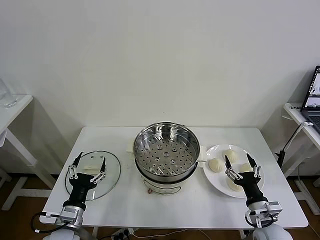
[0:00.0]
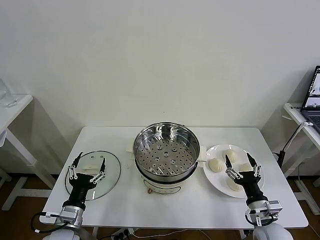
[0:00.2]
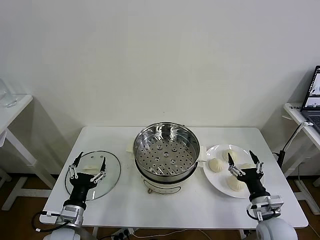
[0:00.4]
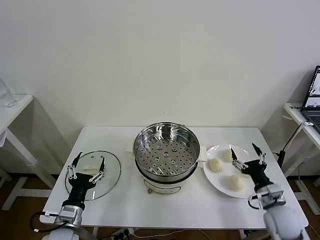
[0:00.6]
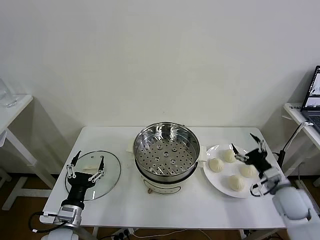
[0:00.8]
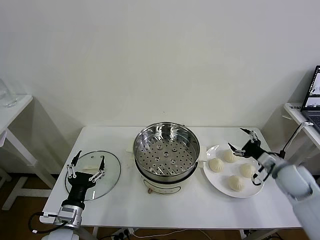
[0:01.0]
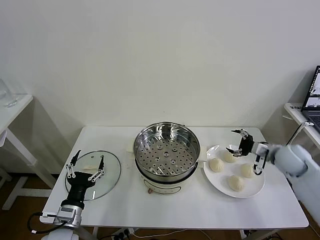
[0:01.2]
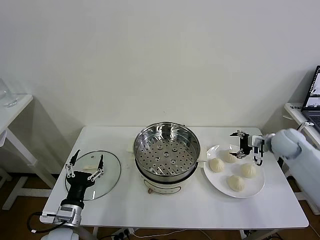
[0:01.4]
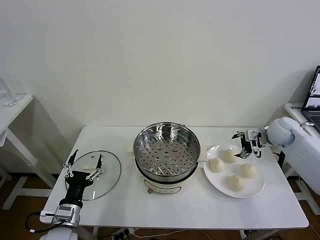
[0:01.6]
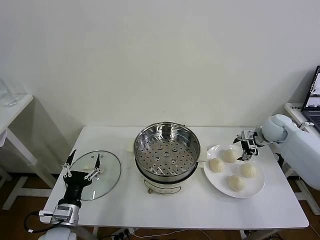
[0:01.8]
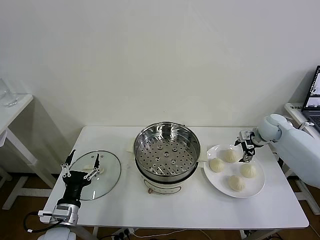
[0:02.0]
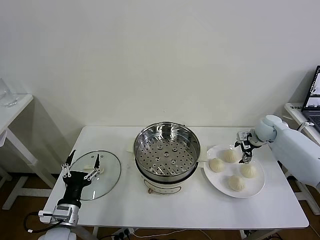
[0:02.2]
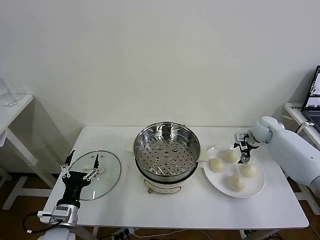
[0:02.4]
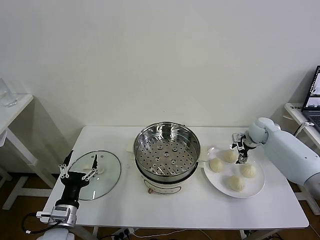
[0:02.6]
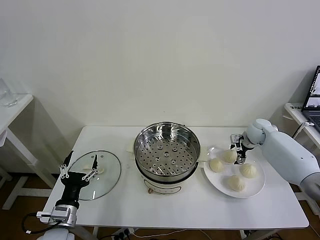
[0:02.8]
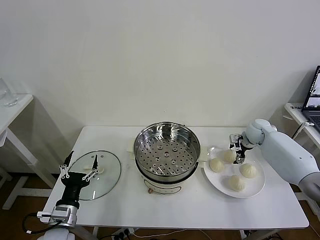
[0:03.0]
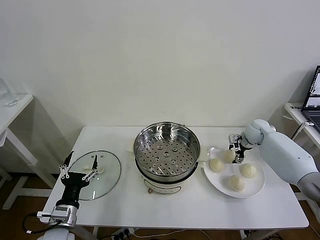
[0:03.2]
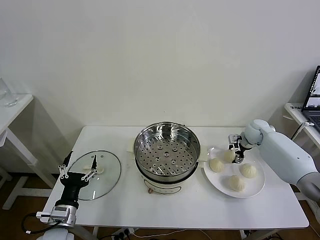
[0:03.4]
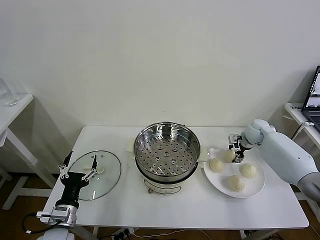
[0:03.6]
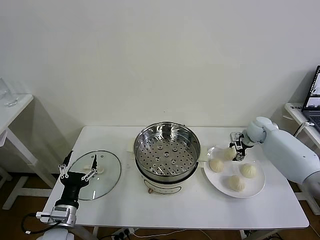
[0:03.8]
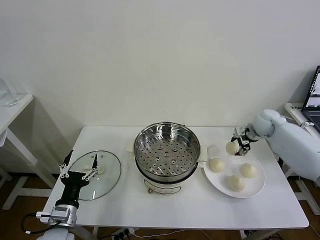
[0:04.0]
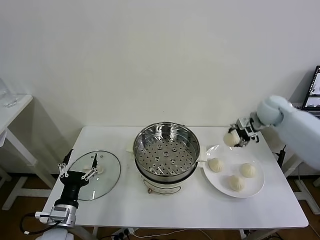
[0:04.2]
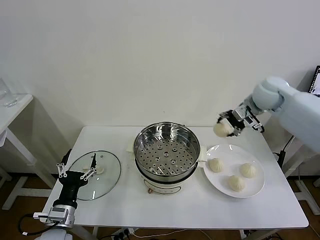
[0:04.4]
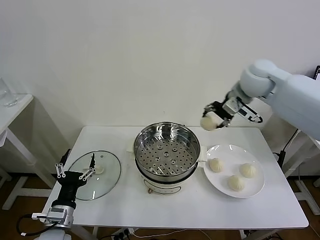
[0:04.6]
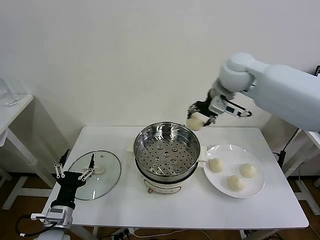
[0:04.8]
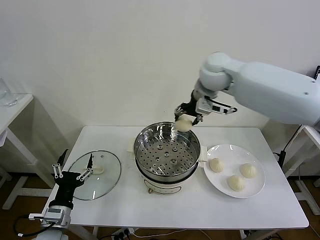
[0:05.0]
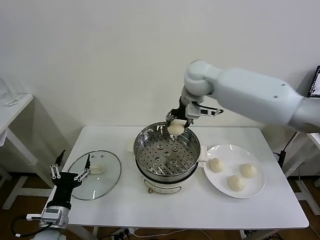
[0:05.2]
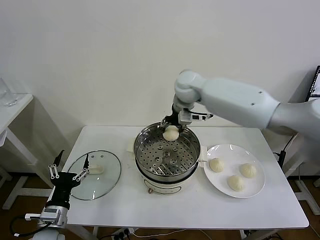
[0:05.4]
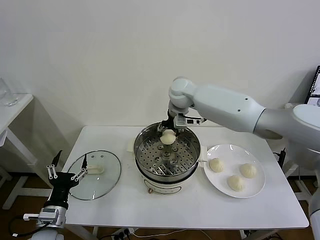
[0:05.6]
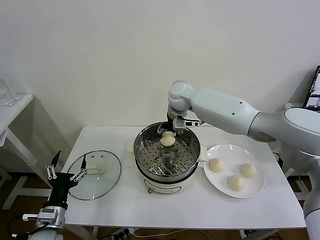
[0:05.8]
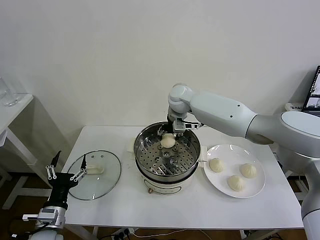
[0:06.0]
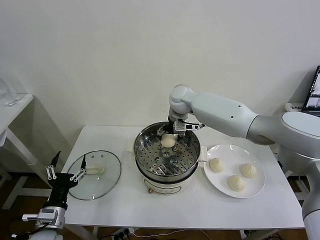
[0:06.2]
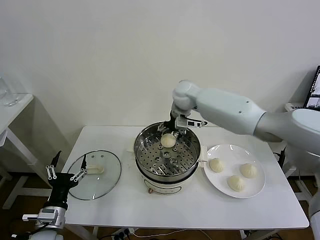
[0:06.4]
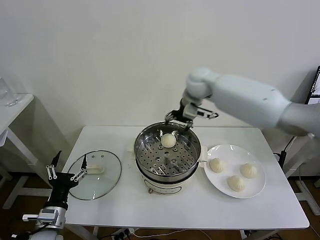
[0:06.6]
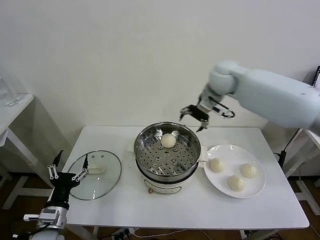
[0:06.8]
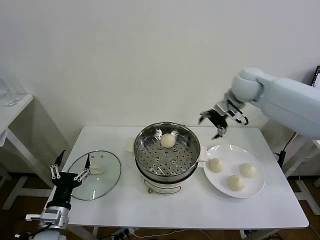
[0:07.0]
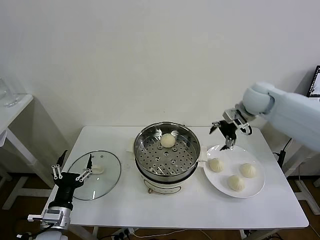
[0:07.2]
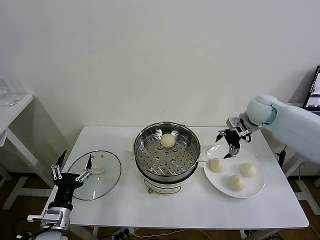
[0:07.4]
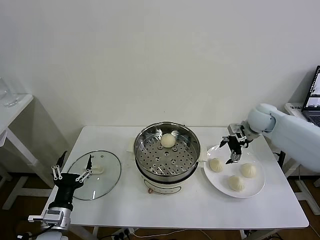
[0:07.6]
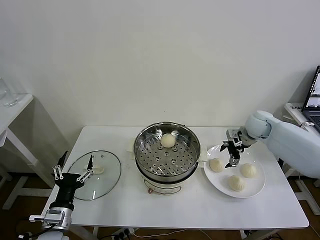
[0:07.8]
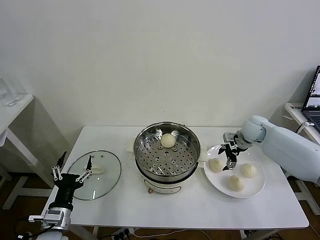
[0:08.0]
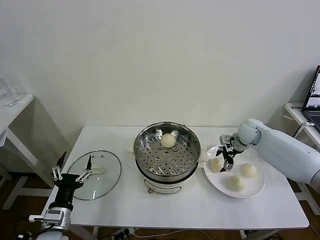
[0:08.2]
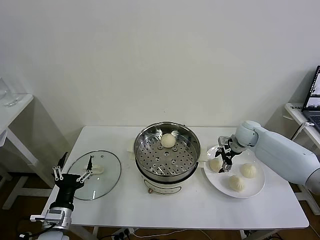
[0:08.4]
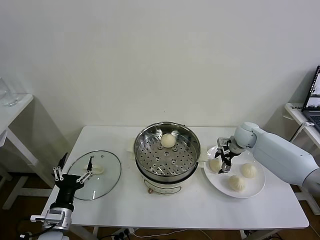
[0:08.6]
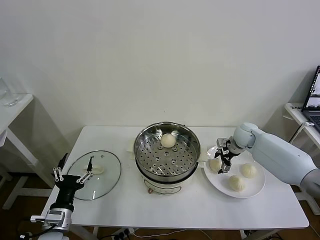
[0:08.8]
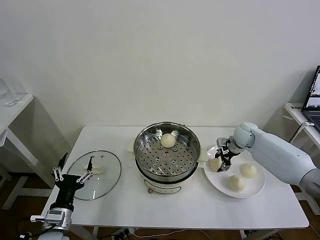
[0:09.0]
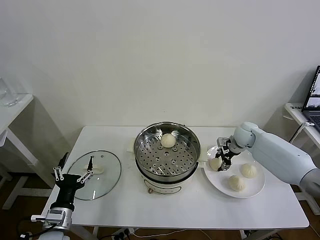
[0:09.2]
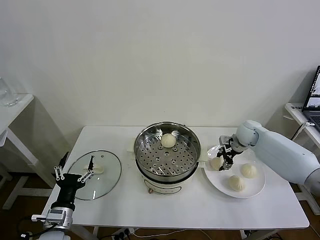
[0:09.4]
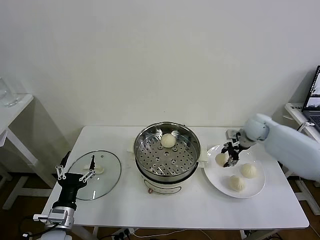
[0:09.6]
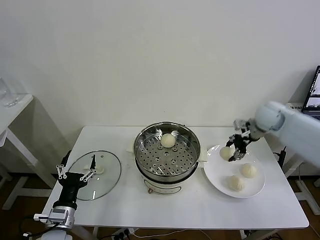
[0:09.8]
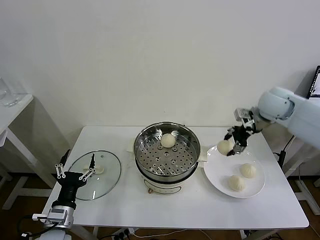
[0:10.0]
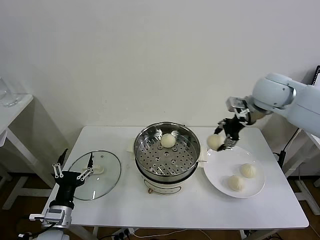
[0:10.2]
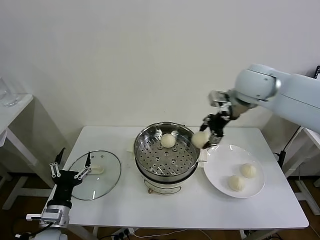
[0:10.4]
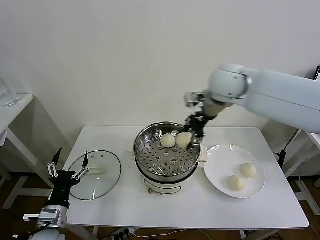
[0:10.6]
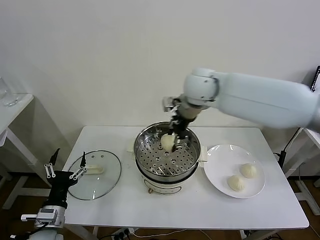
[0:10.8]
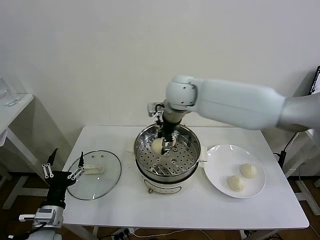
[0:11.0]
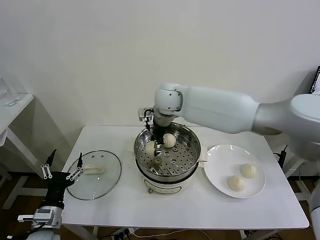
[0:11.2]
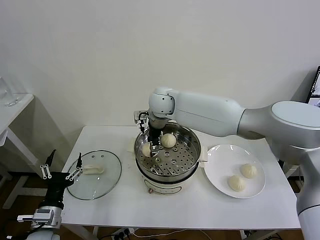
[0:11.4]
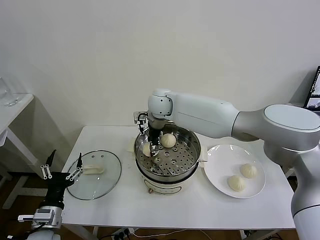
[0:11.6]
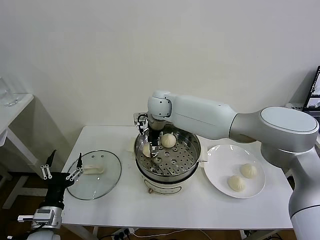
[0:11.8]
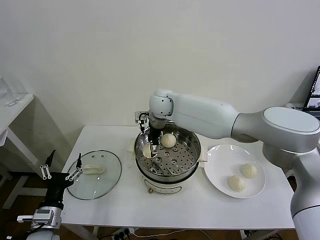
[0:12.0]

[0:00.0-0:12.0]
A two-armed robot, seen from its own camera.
Task of the whole recording: take steamed baozi put them in steamer then cover it.
Step, 0:00.0 to 0:03.4: Grasp the baozi in the plate with right gripper.
Step, 0:03.6 to 0:06.2: Place the baozi on the steamer with right gripper.
Step, 0:06.6 to 0:09.0: Grasp the baozi in the plate with right gripper.
0:01.6 to 0:03.0: The right gripper shifts some 10 cm downward and forward.
0:03.0 to 0:04.4: The right gripper moves upward, some 25 cm, and closes up.
0:04.4 to 0:06.0: The right gripper travels to the left and downward by about 25 cm.
0:06.0 to 0:07.6: The right gripper heads to the right, covering about 30 cm.
0:07.6 to 0:09.0: The right gripper shifts approximately 10 cm downward, and closes its fingers.
0:09.0 to 0:10.4: The right gripper moves upward and to the left, some 30 cm.
0:10.4 to 0:12.0: The right gripper heads to the left and downward, covering about 25 cm, and opens.

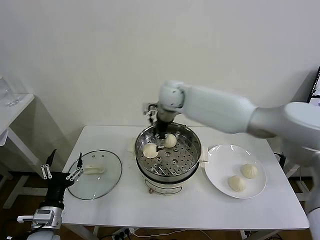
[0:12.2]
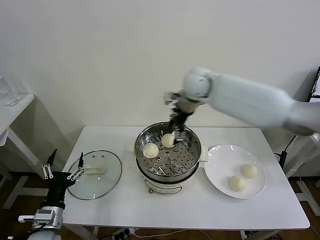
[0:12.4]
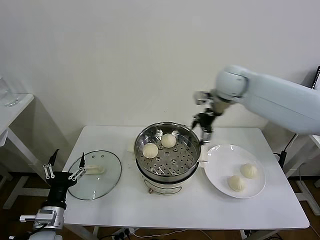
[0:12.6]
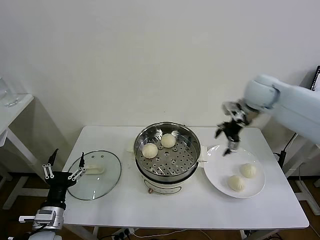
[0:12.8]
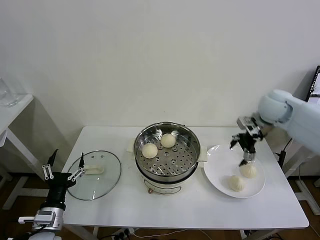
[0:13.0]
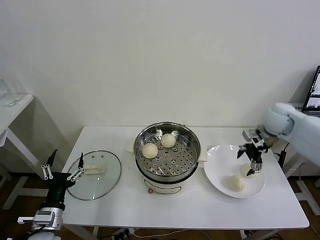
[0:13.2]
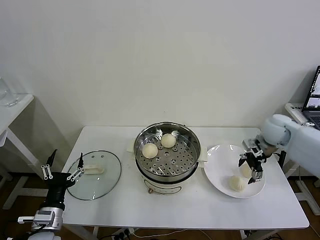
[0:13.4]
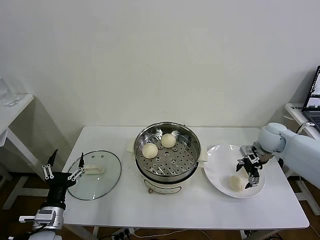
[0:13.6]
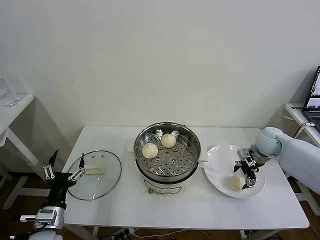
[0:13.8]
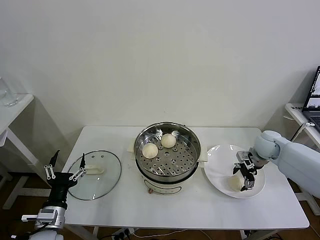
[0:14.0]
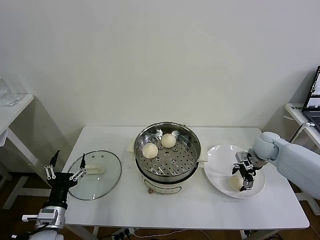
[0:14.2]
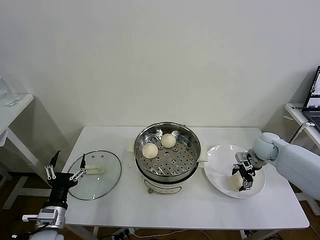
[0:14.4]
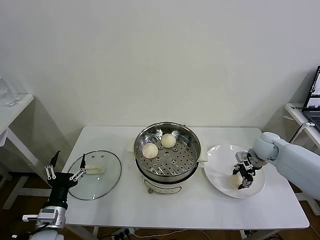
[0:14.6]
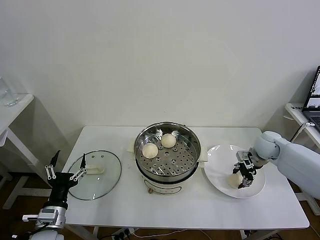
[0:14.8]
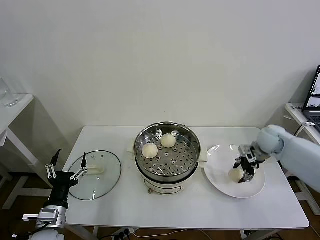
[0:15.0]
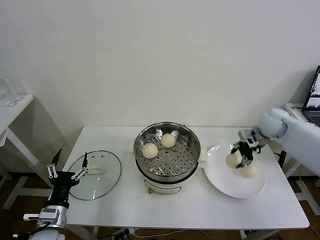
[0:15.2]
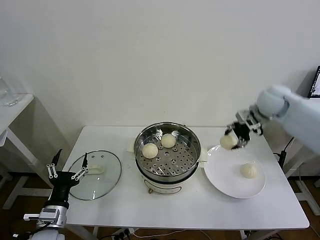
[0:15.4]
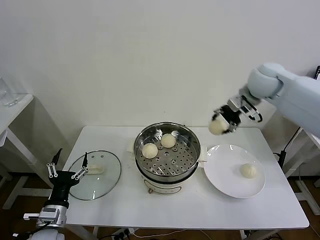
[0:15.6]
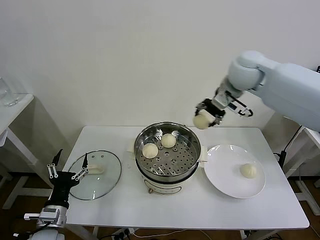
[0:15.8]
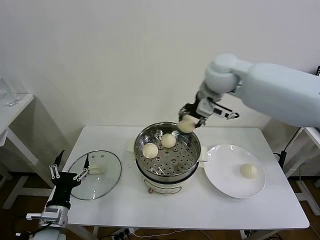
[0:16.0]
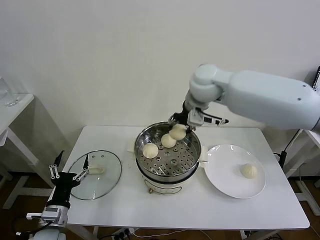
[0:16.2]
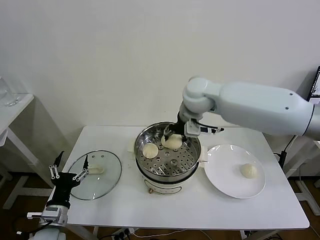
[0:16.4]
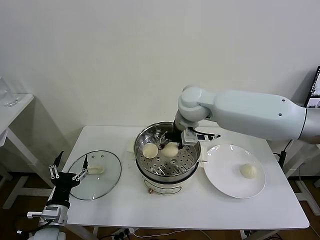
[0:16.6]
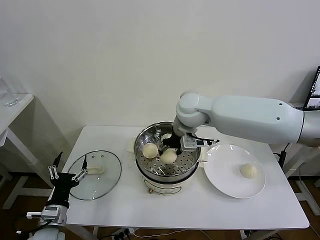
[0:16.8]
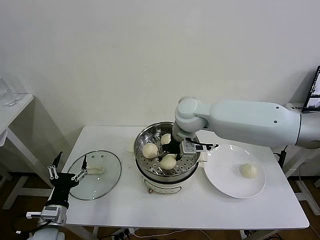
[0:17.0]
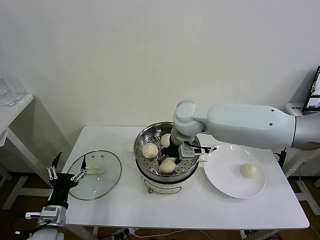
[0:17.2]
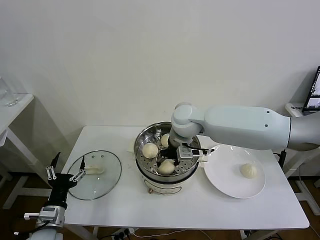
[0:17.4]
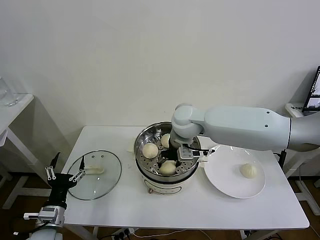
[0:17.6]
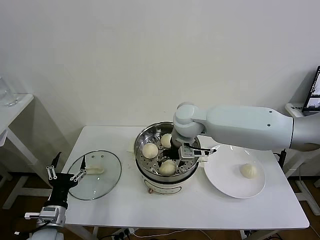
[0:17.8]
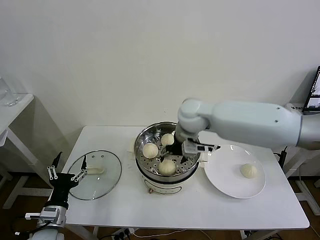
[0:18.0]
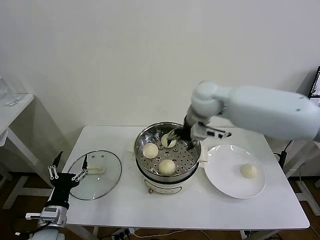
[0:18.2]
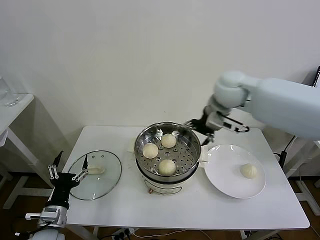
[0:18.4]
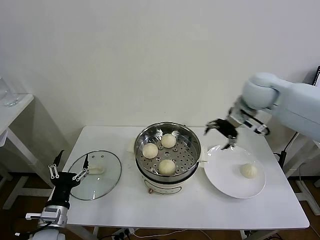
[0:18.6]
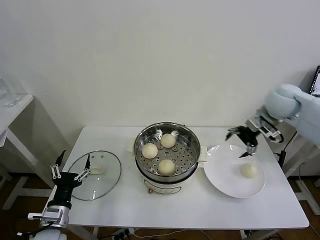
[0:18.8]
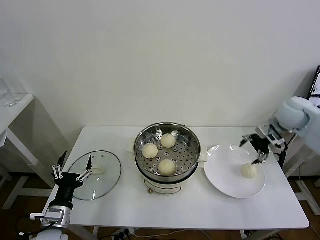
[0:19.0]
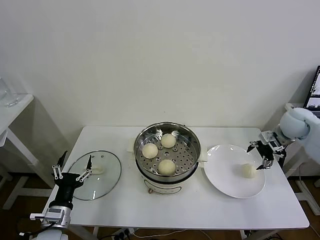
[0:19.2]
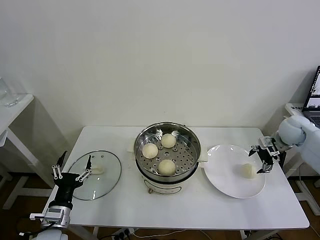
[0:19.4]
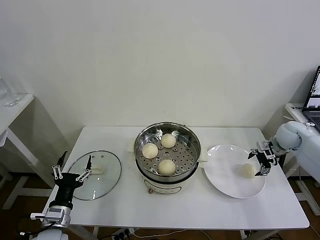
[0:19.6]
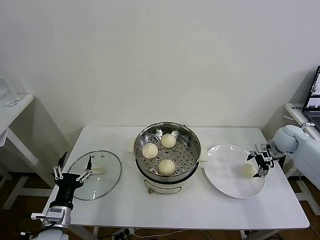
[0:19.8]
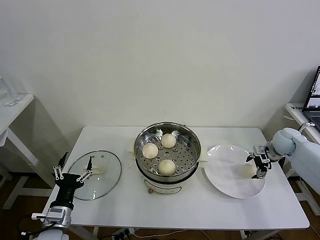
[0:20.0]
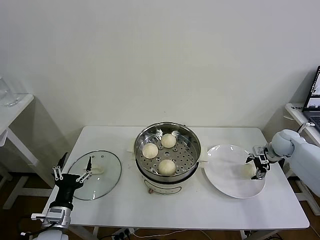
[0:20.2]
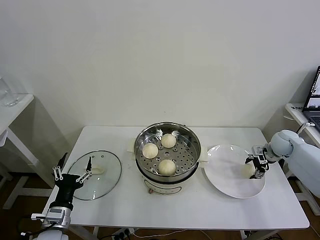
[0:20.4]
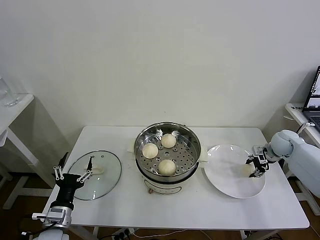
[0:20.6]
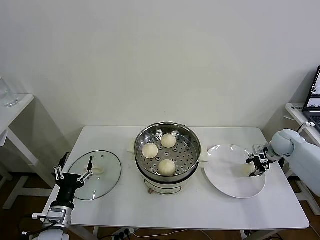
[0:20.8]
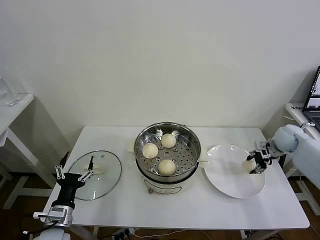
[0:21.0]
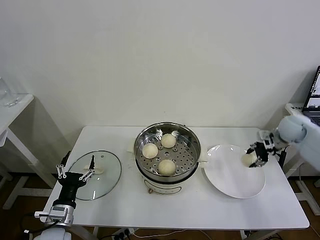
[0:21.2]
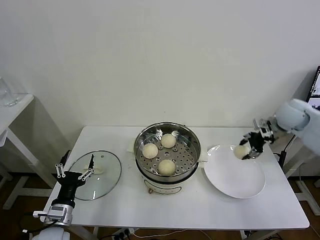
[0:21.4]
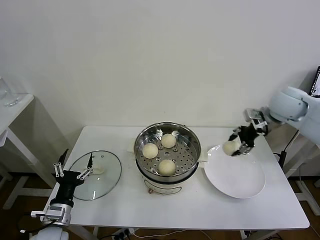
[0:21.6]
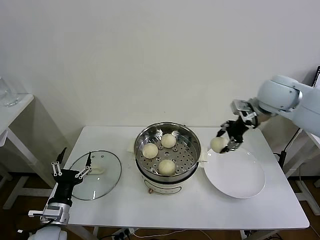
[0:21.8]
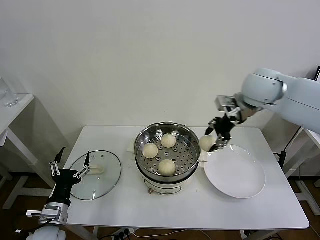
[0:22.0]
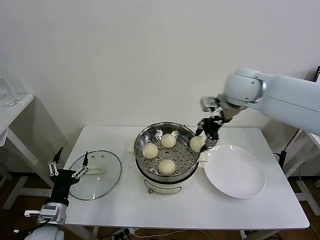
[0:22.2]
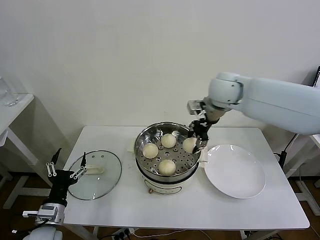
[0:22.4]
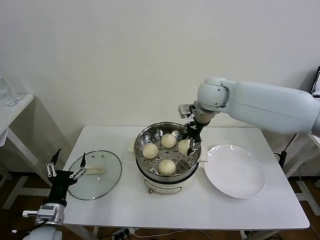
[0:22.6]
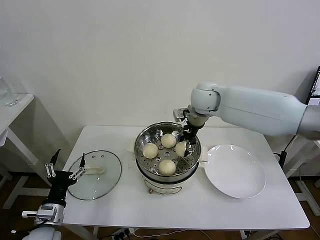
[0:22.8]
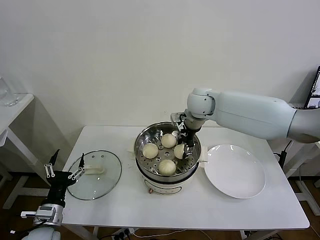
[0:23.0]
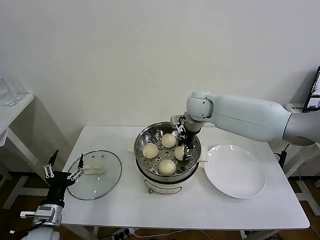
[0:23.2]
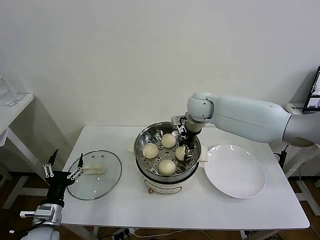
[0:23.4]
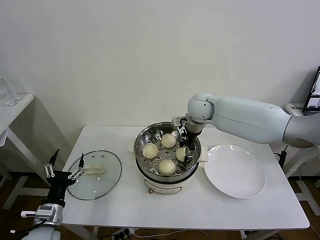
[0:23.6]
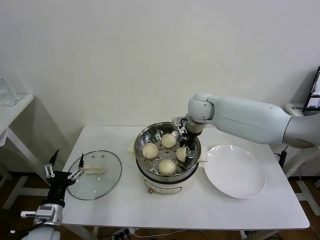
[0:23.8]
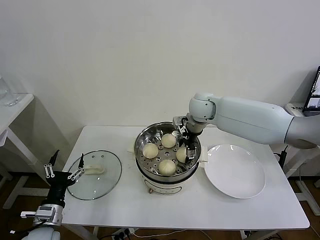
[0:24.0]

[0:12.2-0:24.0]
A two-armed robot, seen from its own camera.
Task of the whole recording: take steamed baozi put them in steamer then cover it.
Step, 0:12.2 to 0:14.6: Grasp the baozi in the plate with right gripper.
Step, 0:14.8 to 0:17.8: Place the baozi on the steamer with right gripper.
Step, 0:18.2 to 0:20.6: Grasp the baozi in the plate with right gripper.
0:12.2 to 0:13.6: The right gripper shifts roughly 35 cm to the right and downward.
0:13.6 to 0:15.2: The right gripper goes about 5 cm upward, and closes its fingers.
0:15.2 to 0:16.6: The right gripper heads to the left, covering roughly 30 cm.
0:16.6 to 0:18.2: The right gripper opens its fingers.
0:18.2 to 0:19.6: The right gripper goes approximately 35 cm to the right and downward.
0:19.6 to 0:21.0: The right gripper closes.
0:21.0 to 0:22.6: The right gripper moves to the left and upward, roughly 35 cm.
0:22.6 to 0:24.0: The right gripper heads downward, covering some 5 cm, and opens.
